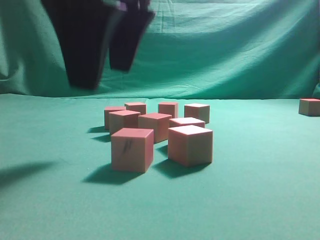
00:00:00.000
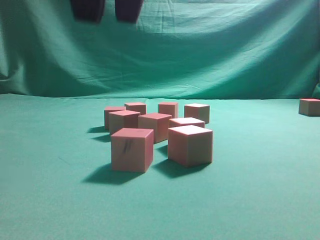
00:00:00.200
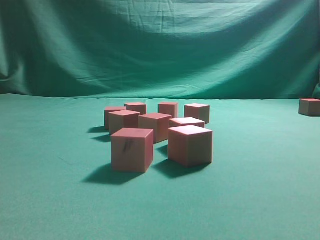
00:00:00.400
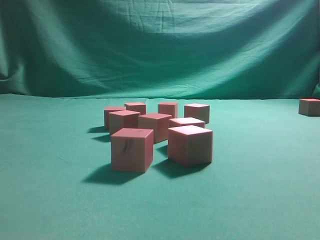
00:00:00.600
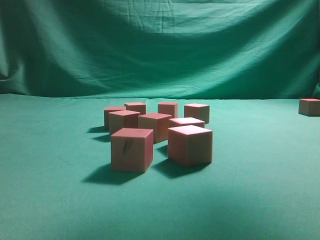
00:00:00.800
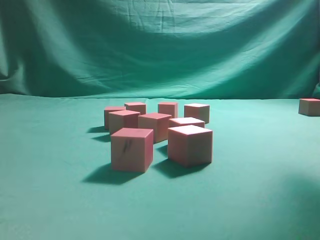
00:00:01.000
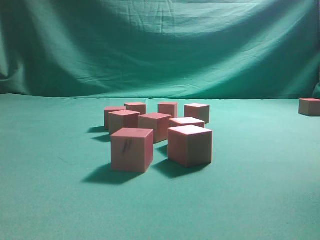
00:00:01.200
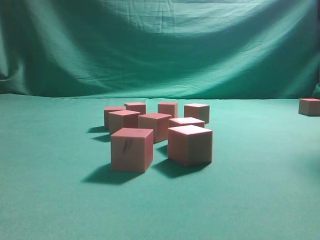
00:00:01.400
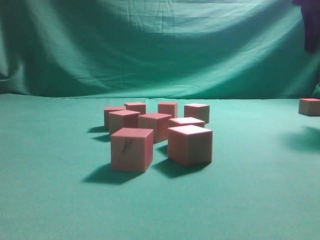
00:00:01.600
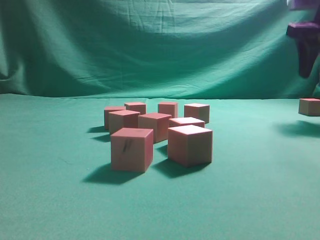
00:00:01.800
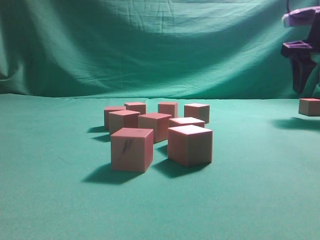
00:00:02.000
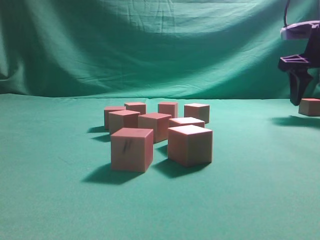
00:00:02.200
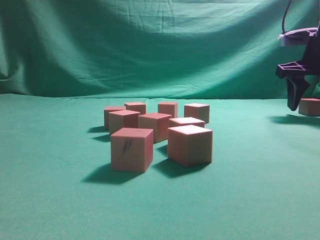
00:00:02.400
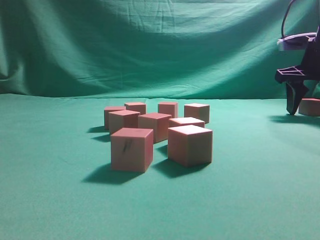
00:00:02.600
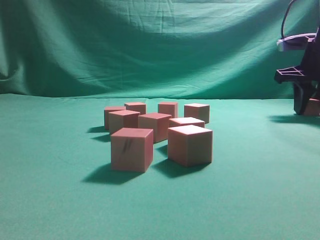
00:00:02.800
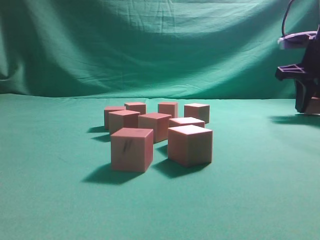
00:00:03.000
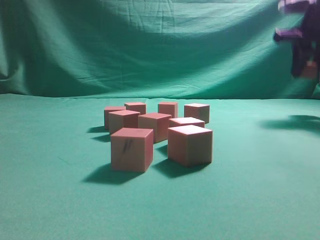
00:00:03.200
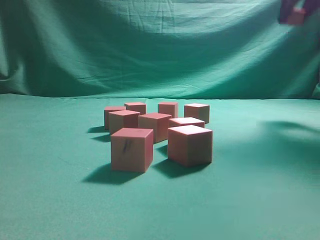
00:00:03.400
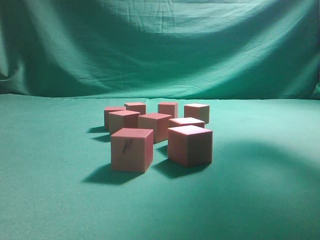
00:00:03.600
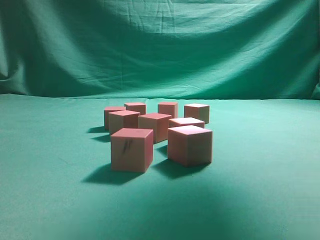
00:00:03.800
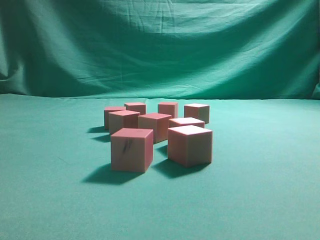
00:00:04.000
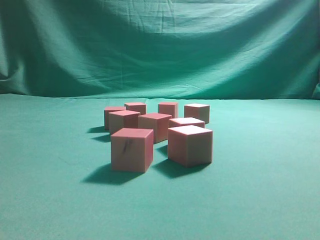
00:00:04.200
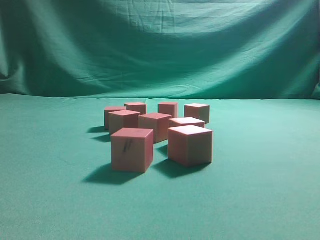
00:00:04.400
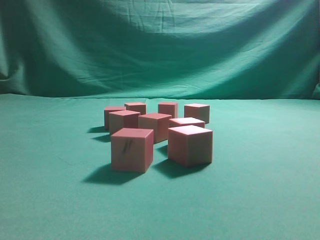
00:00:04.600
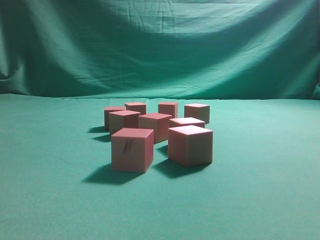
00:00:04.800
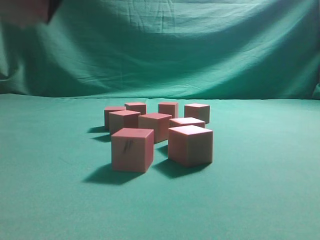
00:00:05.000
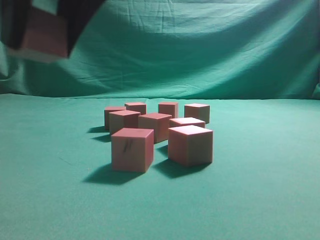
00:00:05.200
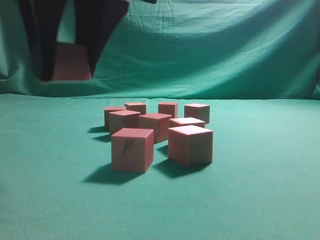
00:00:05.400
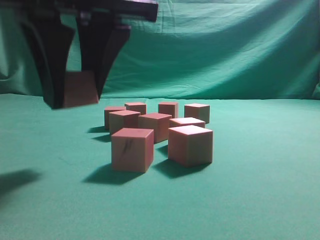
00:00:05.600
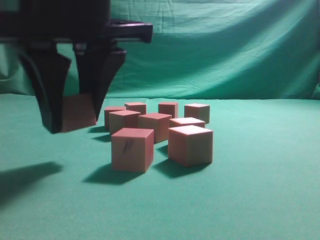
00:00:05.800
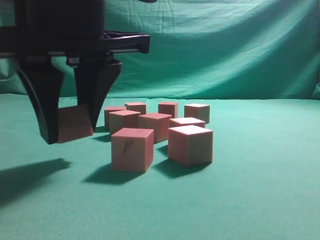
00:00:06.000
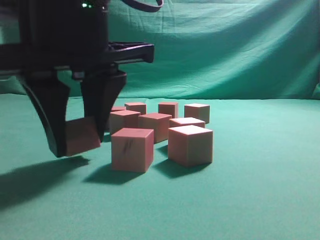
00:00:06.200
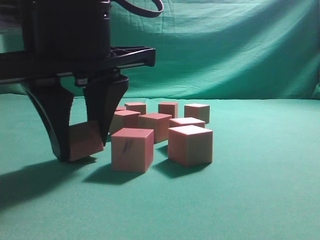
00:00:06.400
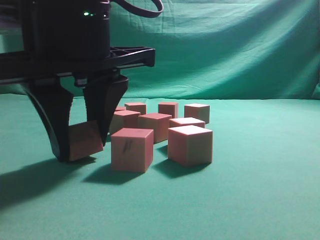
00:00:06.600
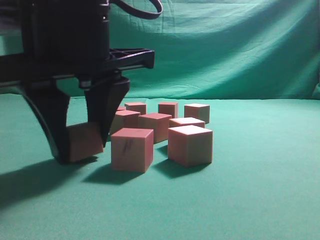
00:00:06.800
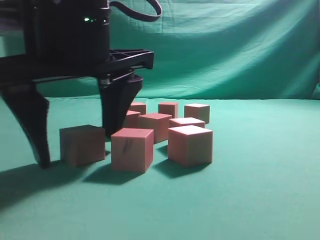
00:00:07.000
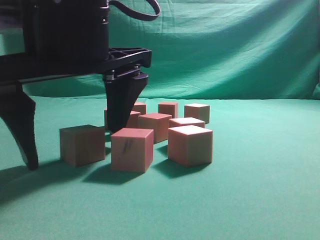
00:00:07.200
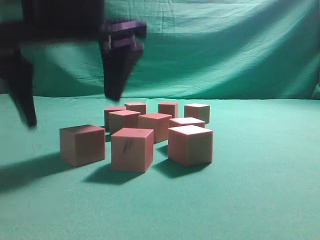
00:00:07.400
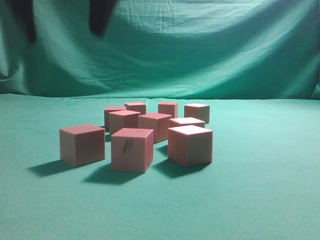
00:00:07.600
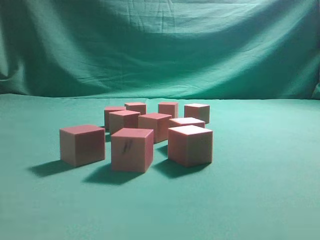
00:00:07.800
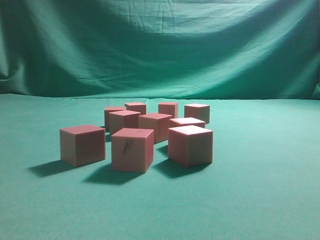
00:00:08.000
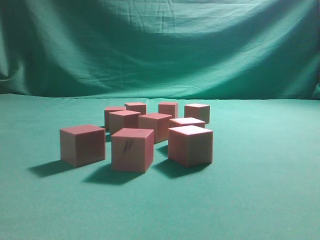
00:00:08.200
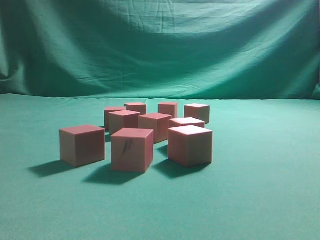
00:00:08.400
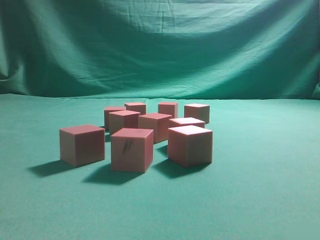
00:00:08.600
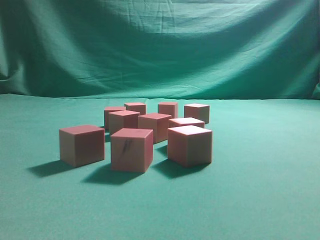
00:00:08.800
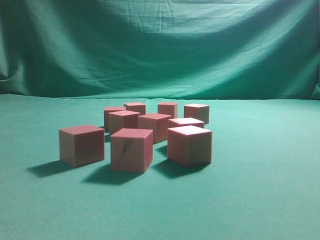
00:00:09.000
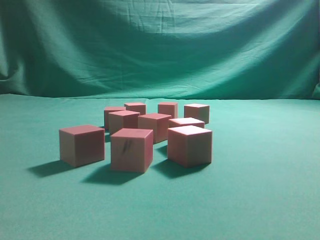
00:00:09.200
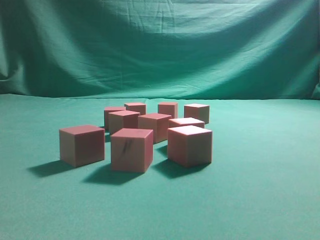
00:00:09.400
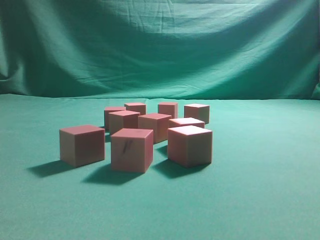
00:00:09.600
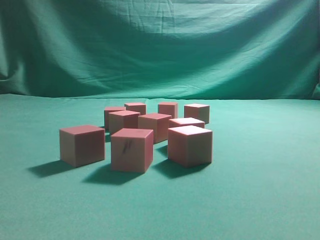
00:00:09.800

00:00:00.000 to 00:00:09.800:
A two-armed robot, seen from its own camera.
Task of the whole recording: pick up the multiple cubes in two columns one by one and place them in another position on the table.
Step, 00:00:00.200 to 00:00:03.000: Pick up the block on the table.
Step, 00:00:03.200 to 00:00:07.400: Place the block at the correct position to assemble the letter S.
00:00:00.000 to 00:00:01.400: The right gripper moves to the right and forward, approximately 35 cm.
00:00:01.400 to 00:00:02.800: The right gripper heads downward and forward, covering approximately 20 cm.
00:00:02.800 to 00:00:04.200: The right gripper goes roughly 35 cm upward, backward and to the left.
00:00:04.200 to 00:00:05.600: The right gripper goes about 25 cm downward and to the left.
00:00:05.600 to 00:00:07.000: The right gripper shifts some 5 cm downward.
00:00:07.000 to 00:00:08.400: The right gripper is displaced upward by some 35 cm, and closes its fingers.
